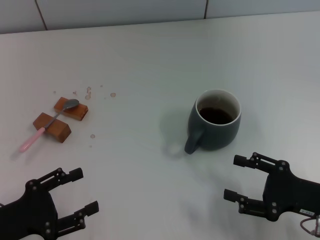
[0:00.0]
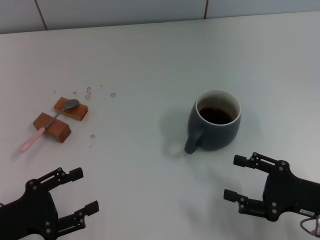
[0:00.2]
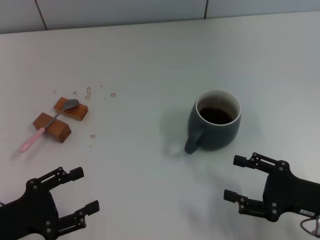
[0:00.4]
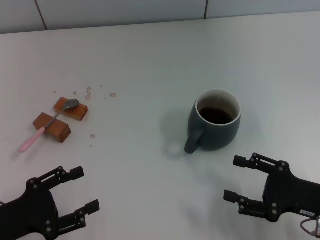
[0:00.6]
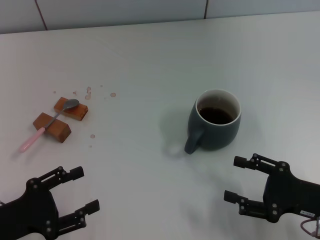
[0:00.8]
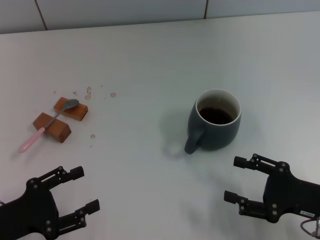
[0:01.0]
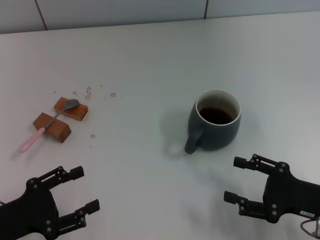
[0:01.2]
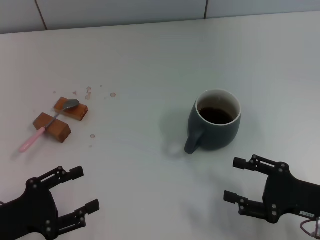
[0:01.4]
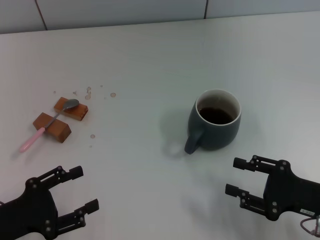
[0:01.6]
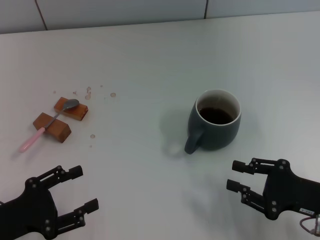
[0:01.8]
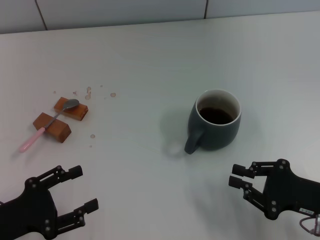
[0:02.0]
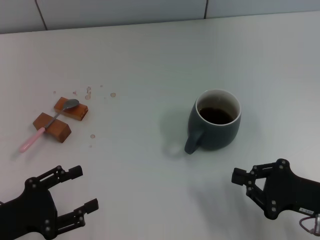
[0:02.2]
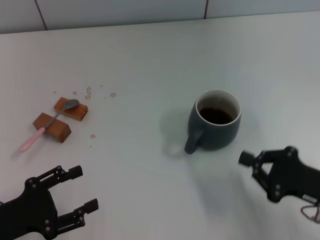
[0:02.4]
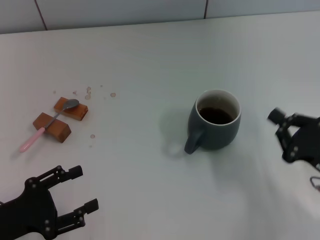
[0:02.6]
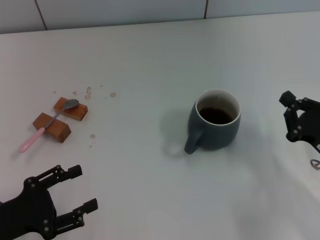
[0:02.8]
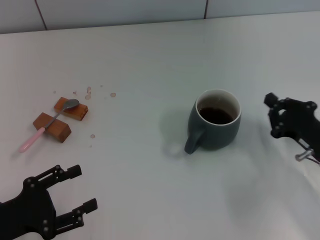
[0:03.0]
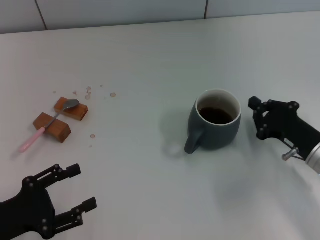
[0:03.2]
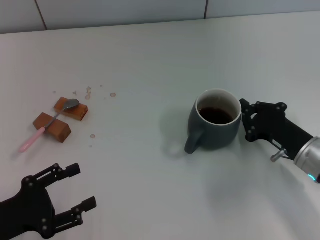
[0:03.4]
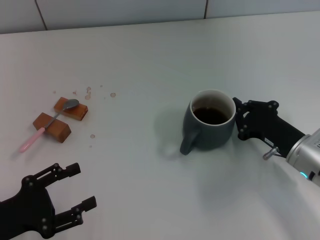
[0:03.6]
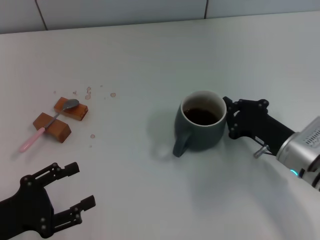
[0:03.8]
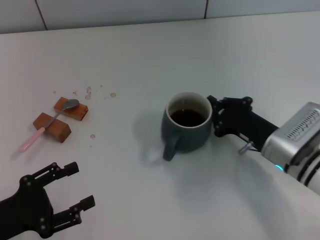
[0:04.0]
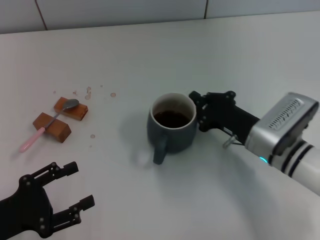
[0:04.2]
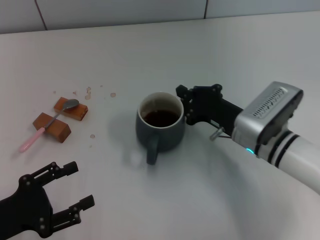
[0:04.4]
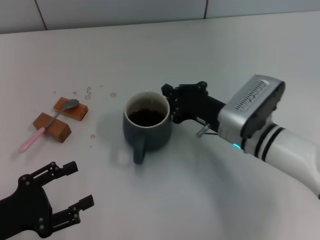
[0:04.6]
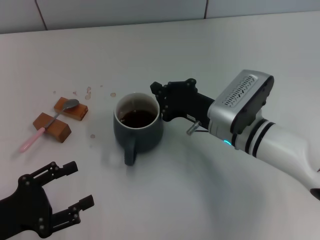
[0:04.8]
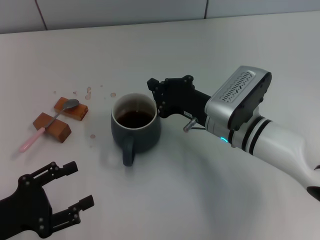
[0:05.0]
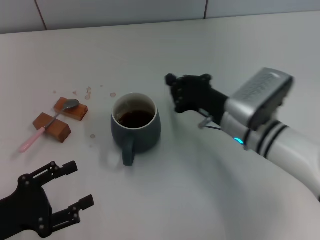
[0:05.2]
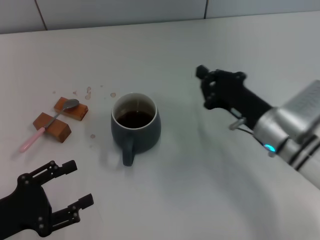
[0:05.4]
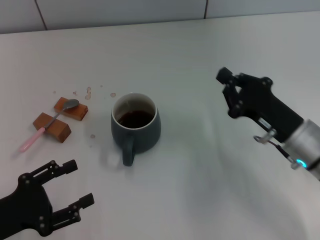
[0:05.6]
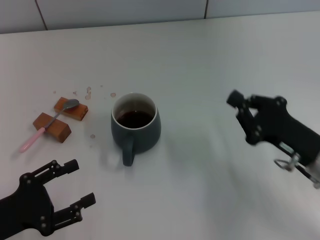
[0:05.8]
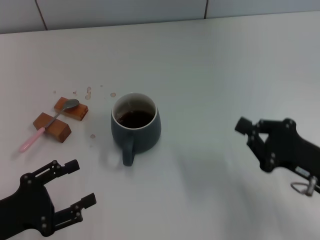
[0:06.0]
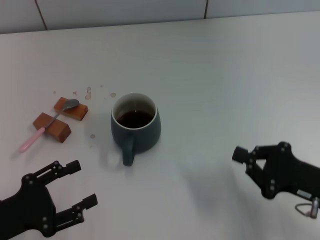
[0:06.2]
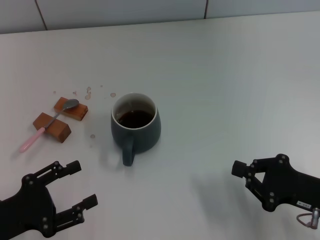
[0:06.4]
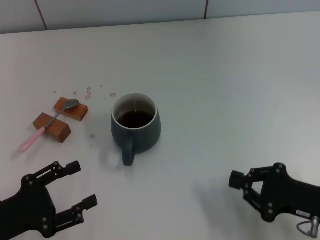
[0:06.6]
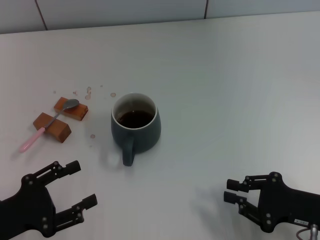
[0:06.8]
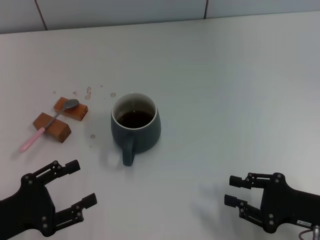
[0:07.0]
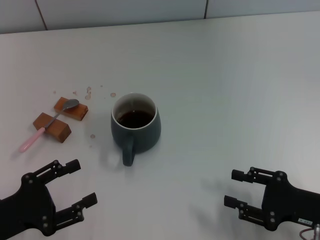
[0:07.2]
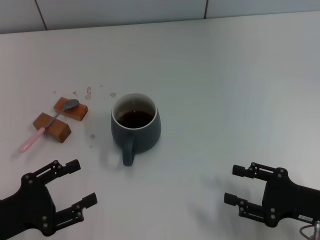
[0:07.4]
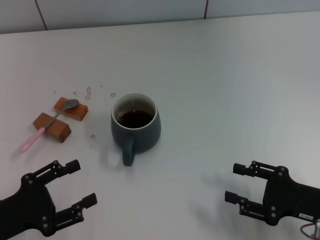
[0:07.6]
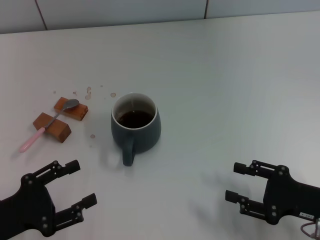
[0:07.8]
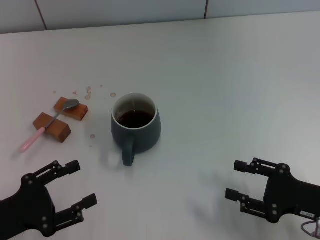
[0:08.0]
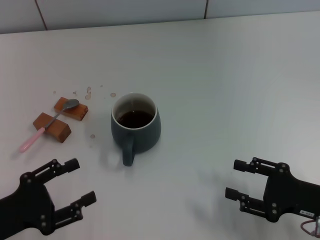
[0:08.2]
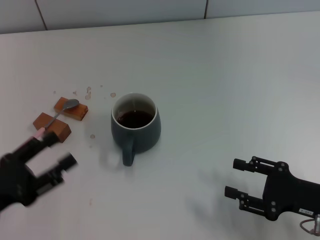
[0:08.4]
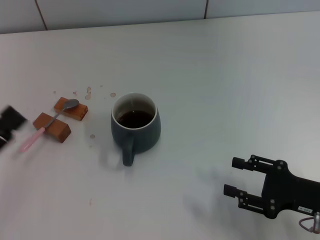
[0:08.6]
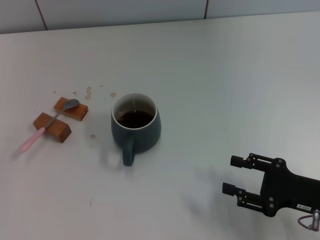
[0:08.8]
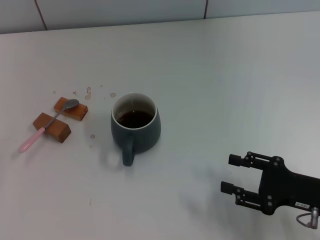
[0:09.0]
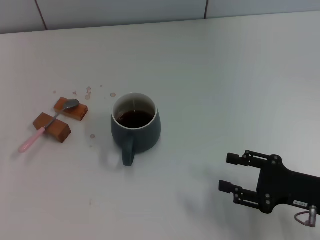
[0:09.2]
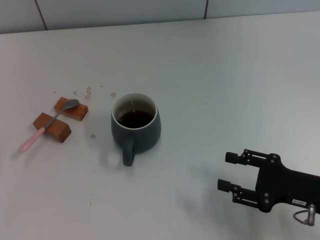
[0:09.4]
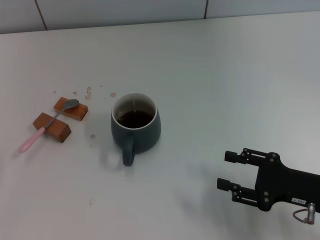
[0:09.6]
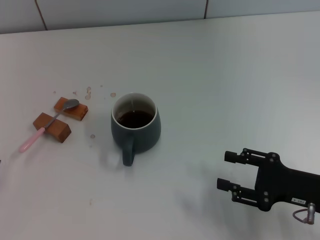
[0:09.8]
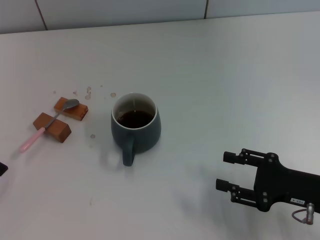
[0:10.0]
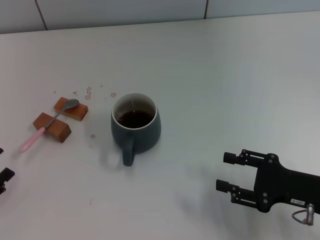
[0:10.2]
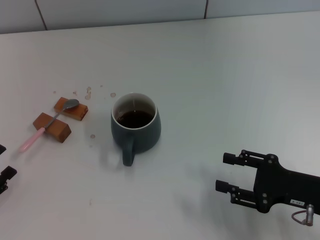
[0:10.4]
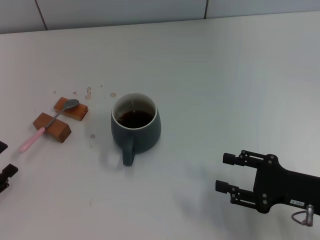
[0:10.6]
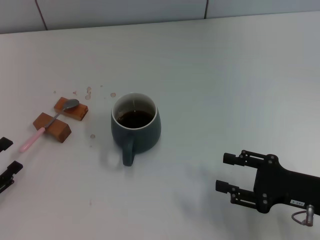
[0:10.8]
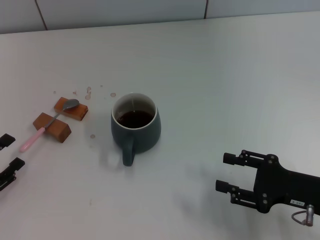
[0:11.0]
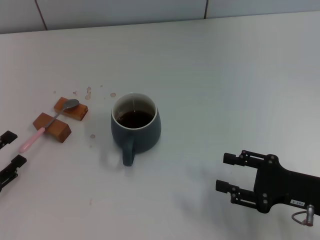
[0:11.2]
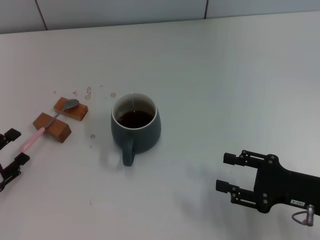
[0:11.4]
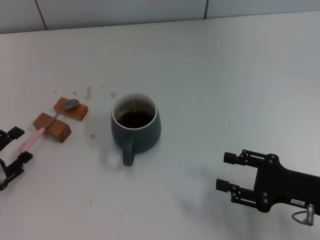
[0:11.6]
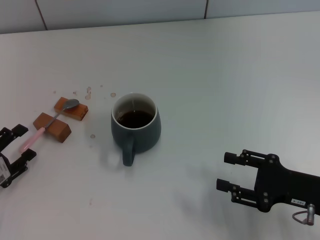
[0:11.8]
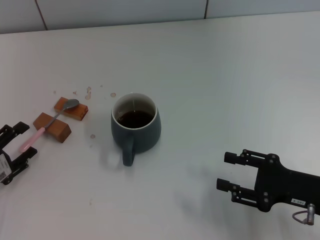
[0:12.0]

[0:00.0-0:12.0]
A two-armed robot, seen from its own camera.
Task of the whole recording: Move the grey cup to the center, lift the pink spoon, stir it three times in the cup, and put the spoon into the cup.
Step, 0:00.0 to 0:05.4: Move the cup with coffee to the center of view with the right gripper.
0:00.0 to 0:01.6: The two grippers keep their place.
0:01.6 to 0:03.0: The right gripper is displaced forward by approximately 5 cm, and closes.
0:03.0 to 0:04.4: The right gripper is displaced to the left and forward by approximately 15 cm.
0:04.4 to 0:06.0: The right gripper goes approximately 15 cm to the right and backward.
0:06.0 to 0:07.6: The right gripper opens its fingers.
0:07.6 to 0:09.0: The left gripper goes roughly 5 cm to the left.
0:10.4 to 0:12.0: The left gripper is displaced forward by approximately 5 cm.

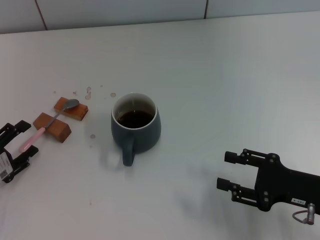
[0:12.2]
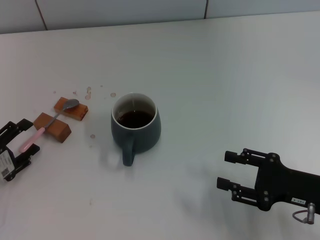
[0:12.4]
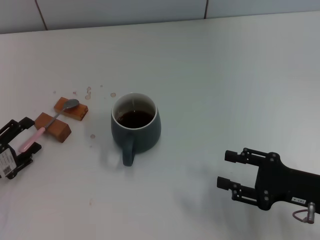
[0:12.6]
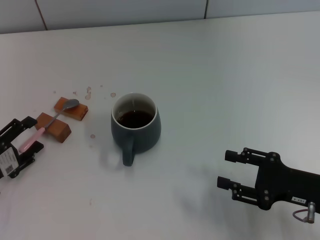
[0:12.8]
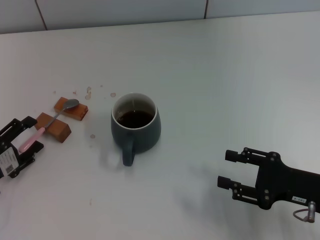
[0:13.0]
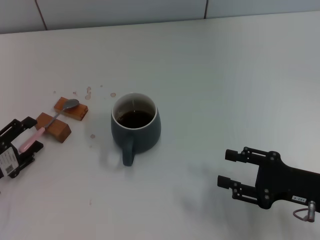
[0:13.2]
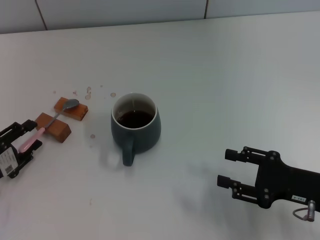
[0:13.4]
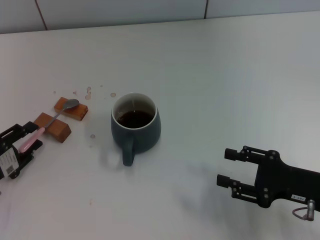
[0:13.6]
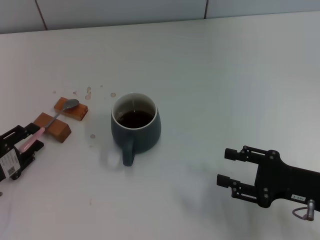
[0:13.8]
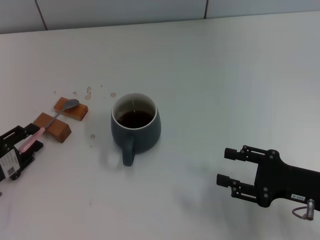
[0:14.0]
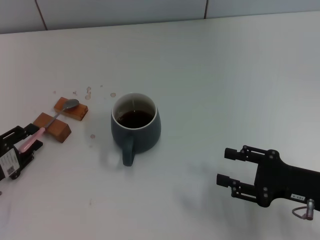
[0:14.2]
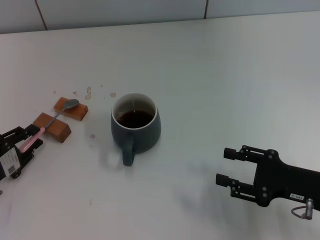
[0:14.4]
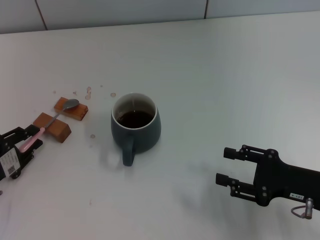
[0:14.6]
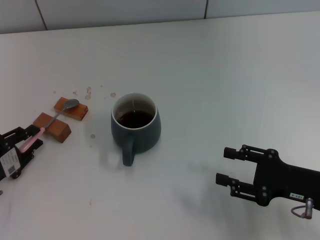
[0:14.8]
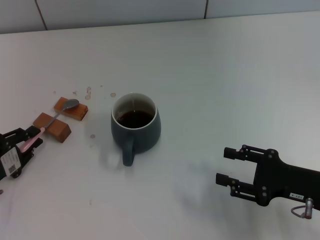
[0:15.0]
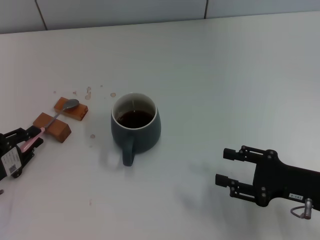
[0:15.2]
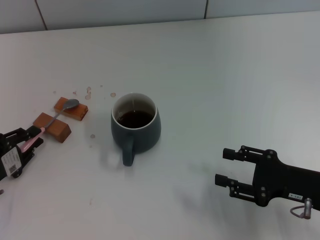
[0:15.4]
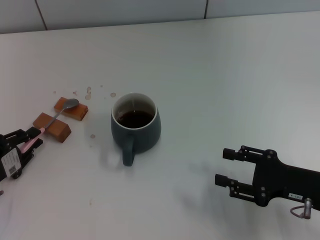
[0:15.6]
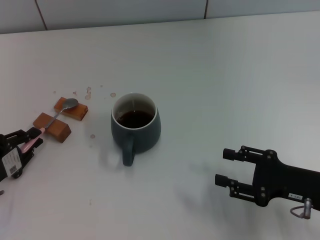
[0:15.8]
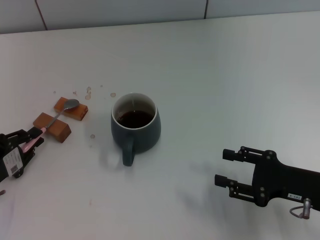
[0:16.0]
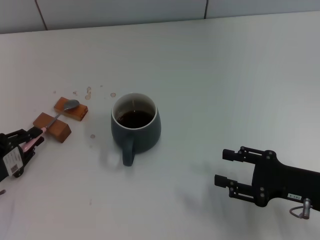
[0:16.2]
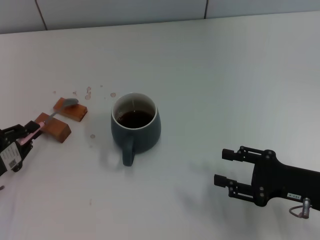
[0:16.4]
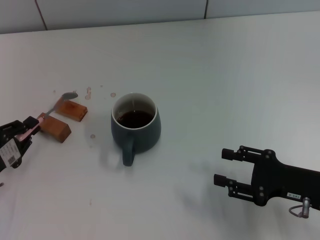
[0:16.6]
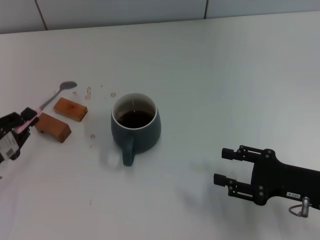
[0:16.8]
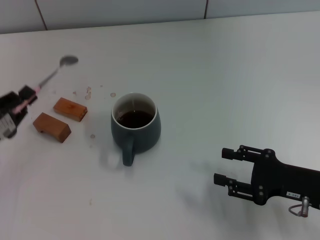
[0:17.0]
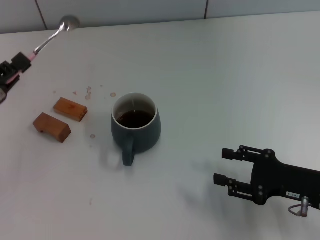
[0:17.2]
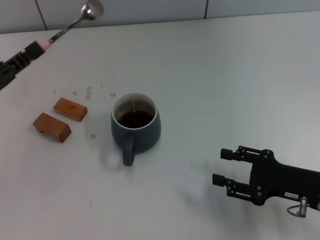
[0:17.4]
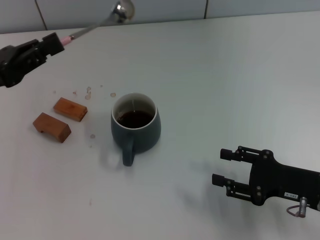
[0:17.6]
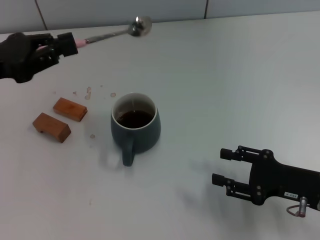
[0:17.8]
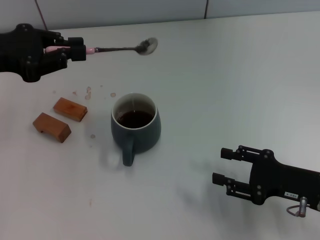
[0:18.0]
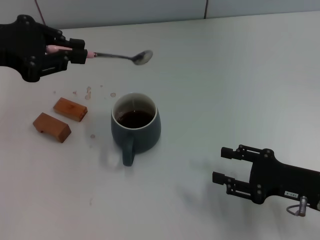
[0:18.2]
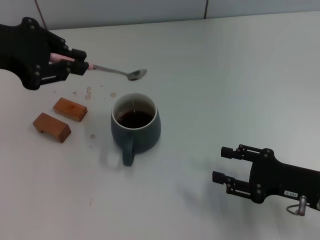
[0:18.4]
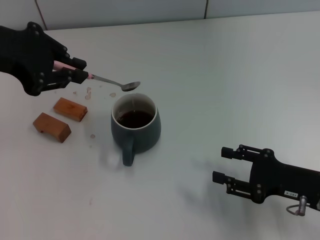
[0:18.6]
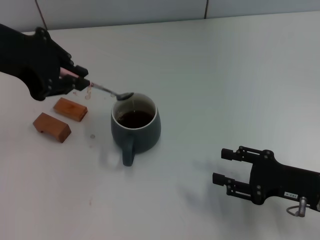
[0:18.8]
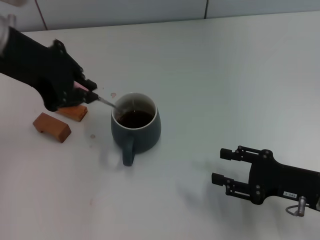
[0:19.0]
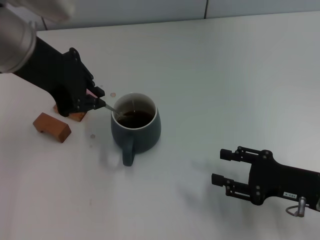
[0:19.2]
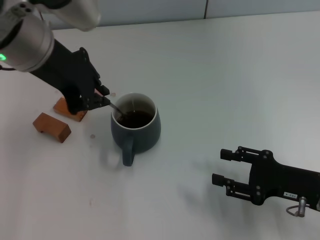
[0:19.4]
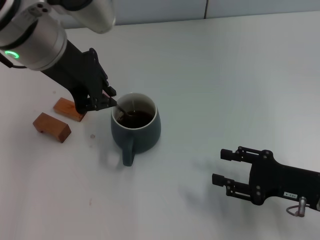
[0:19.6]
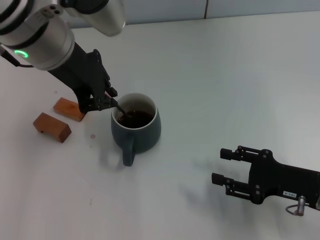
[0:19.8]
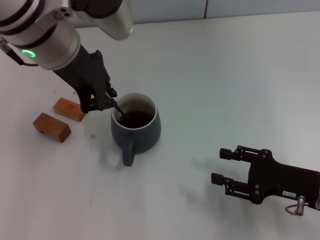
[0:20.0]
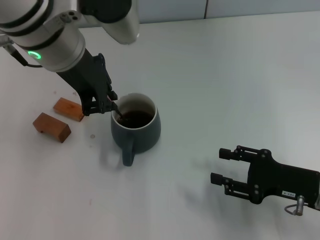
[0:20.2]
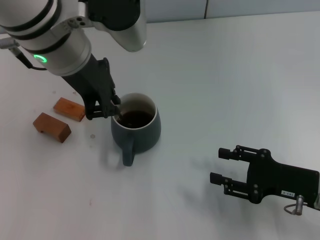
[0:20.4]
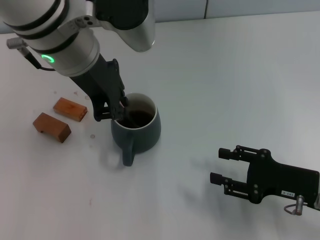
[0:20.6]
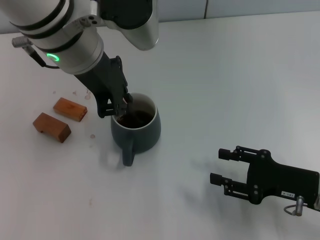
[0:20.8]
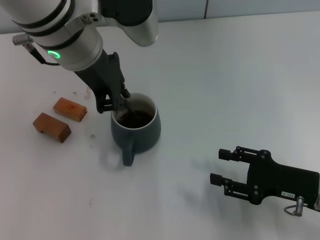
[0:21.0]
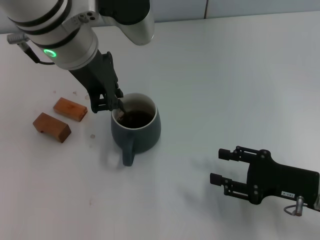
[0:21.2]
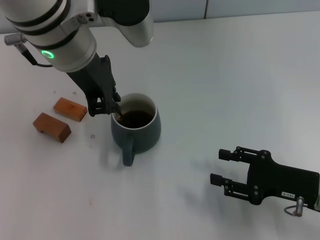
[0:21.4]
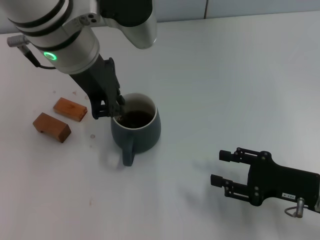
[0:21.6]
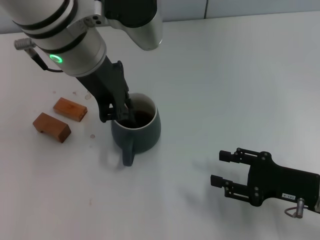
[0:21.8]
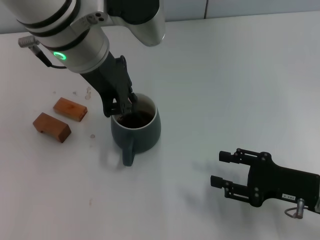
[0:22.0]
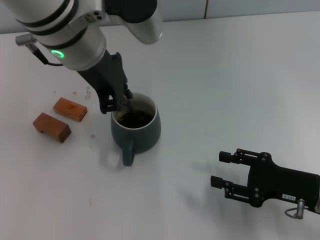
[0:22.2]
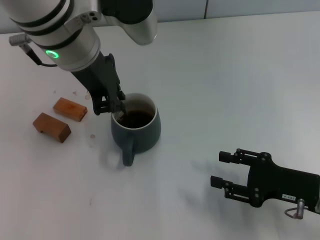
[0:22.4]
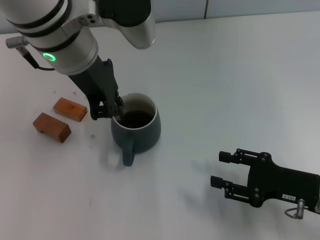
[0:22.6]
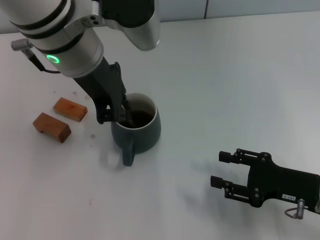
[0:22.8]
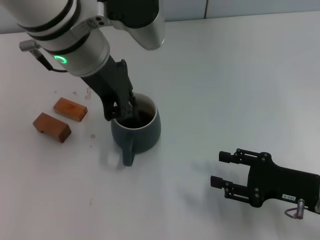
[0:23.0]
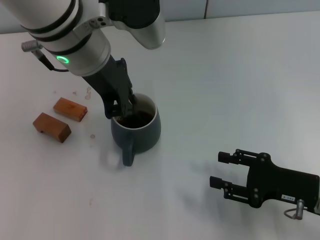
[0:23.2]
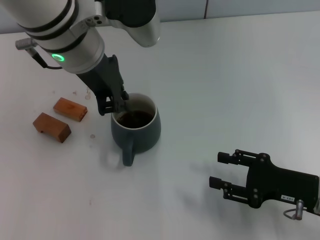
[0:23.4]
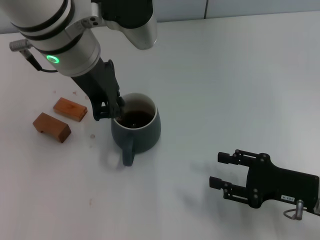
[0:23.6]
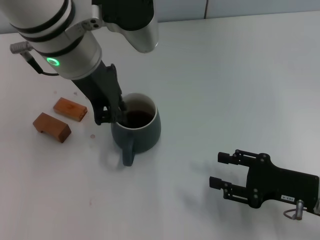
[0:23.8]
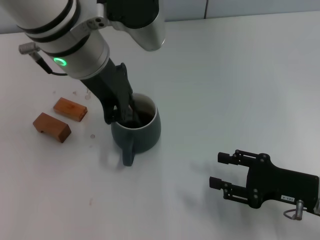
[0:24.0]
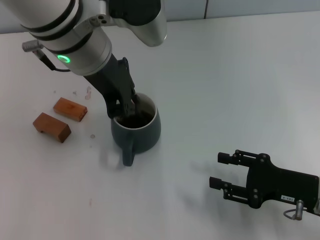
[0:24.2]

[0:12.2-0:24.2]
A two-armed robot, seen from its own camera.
Task of the whole recording: Move the grey cup to the center, lift the pink spoon, stir it three times in the cup, and put the spoon into the cup.
Step, 0:12.2 to 0:17.0: Pick up the spoon with the left gripper.
0:12.2 to 0:13.8: The left gripper closes its fingers.
0:13.8 to 0:15.2: The two grippers keep their place.
0:15.2 to 0:16.6: The grippers make only small movements.
0:16.6 to 0:18.2: The left gripper shifts roughly 25 cm upward and forward.
0:18.2 to 0:19.8: The left gripper shifts roughly 15 cm to the right.
0:19.8 to 0:21.2: The grippers stay close to where they were, moving slightly.
0:21.2 to 0:22.6: The two grippers keep their place.
0:22.6 to 0:24.2: Neither gripper changes place.
